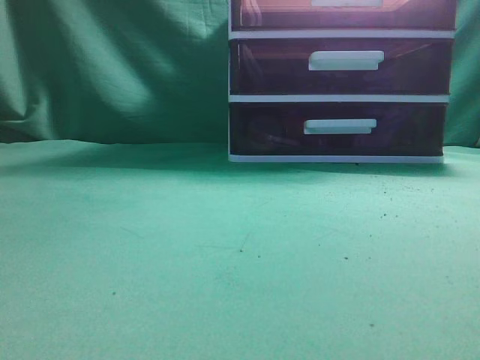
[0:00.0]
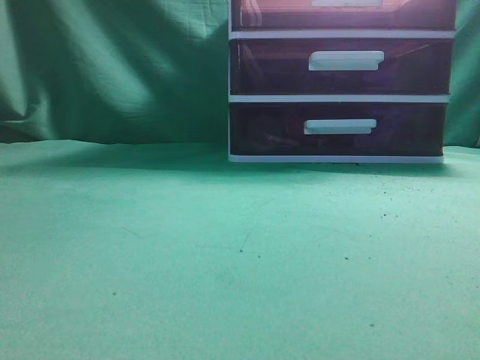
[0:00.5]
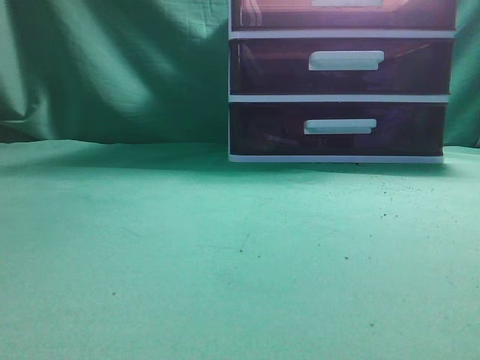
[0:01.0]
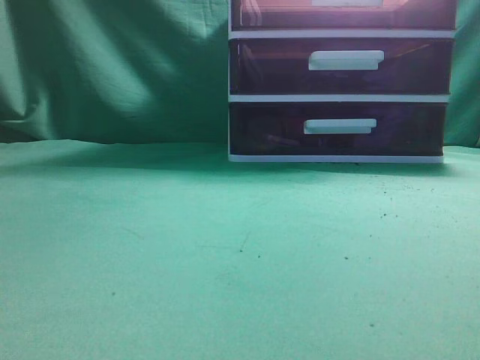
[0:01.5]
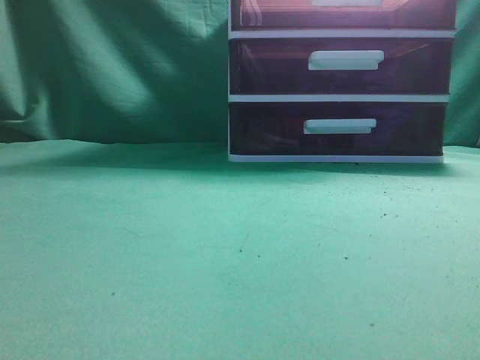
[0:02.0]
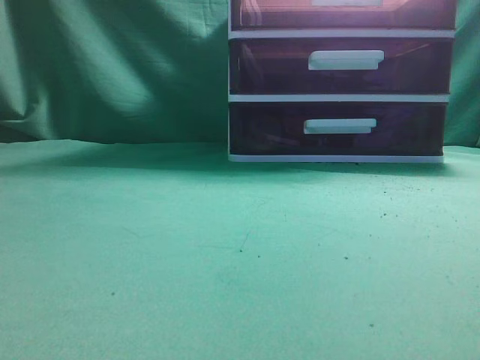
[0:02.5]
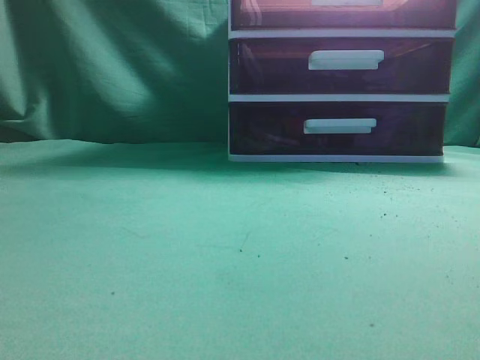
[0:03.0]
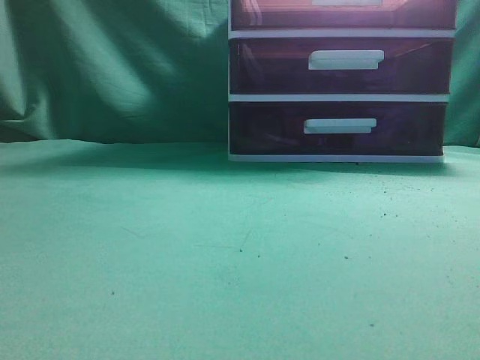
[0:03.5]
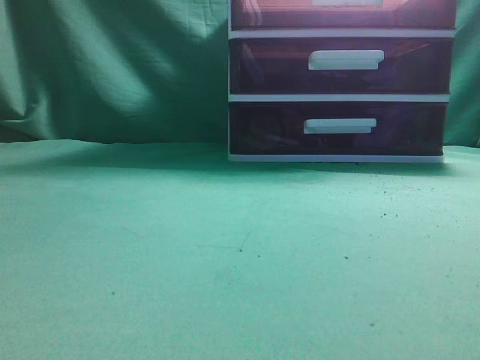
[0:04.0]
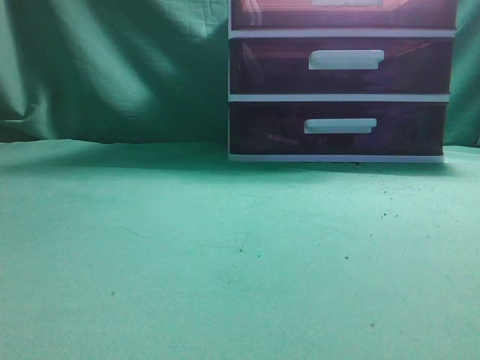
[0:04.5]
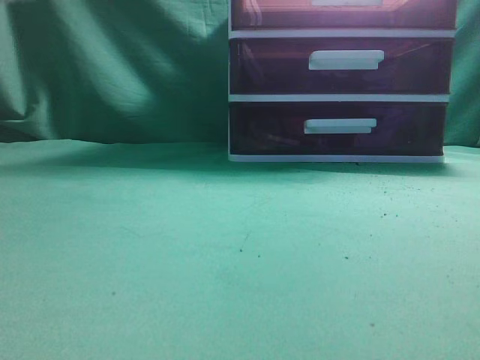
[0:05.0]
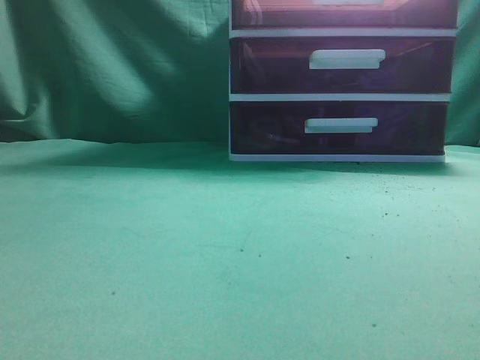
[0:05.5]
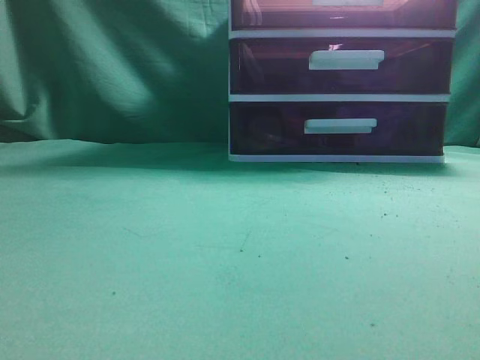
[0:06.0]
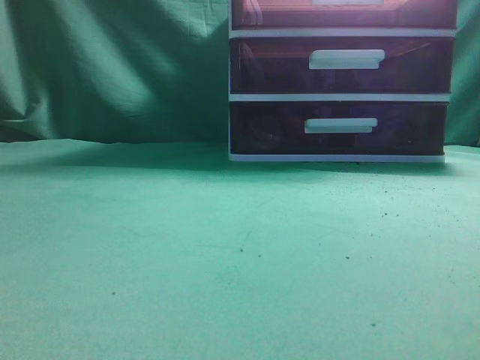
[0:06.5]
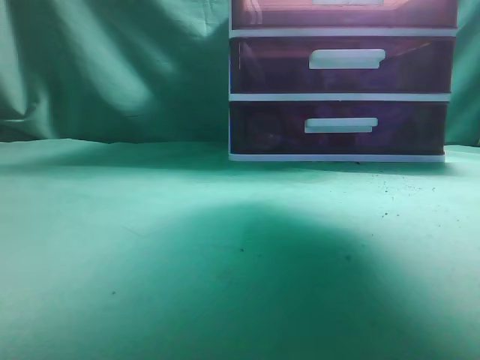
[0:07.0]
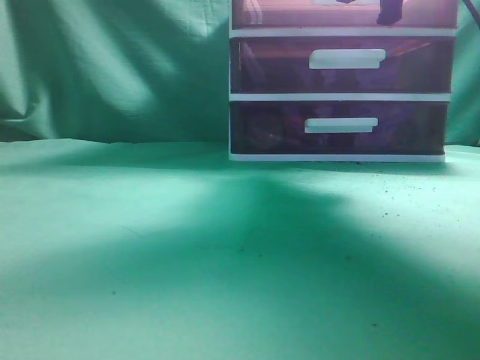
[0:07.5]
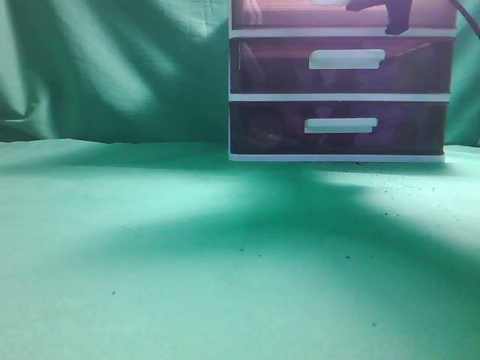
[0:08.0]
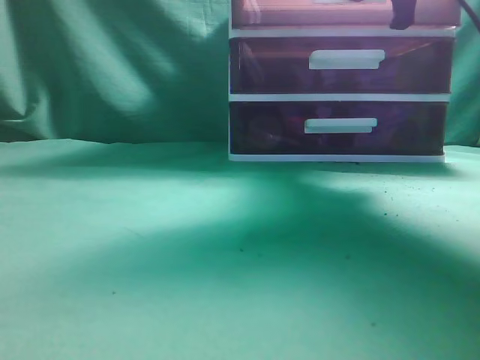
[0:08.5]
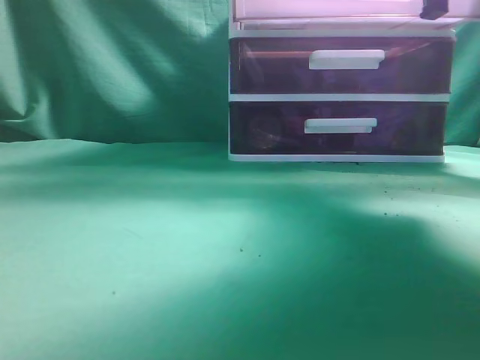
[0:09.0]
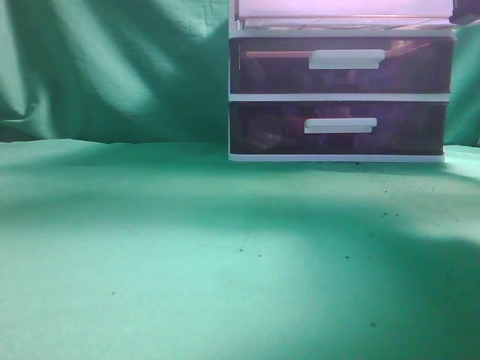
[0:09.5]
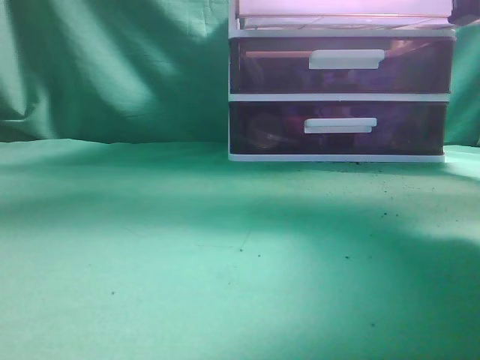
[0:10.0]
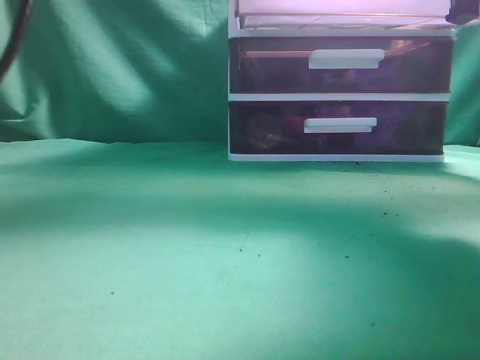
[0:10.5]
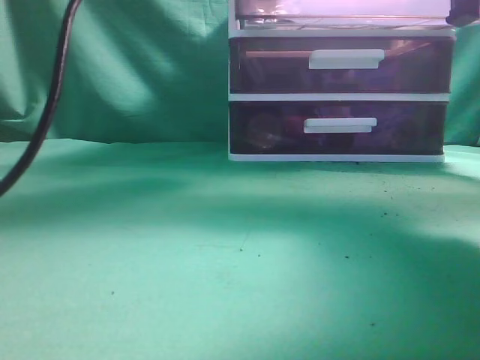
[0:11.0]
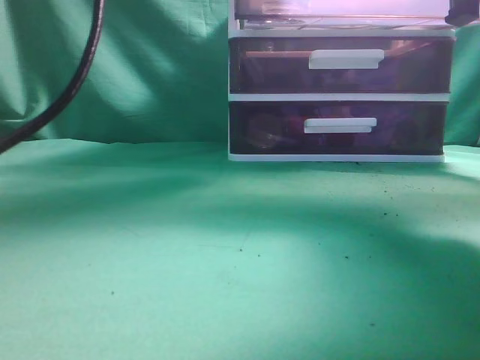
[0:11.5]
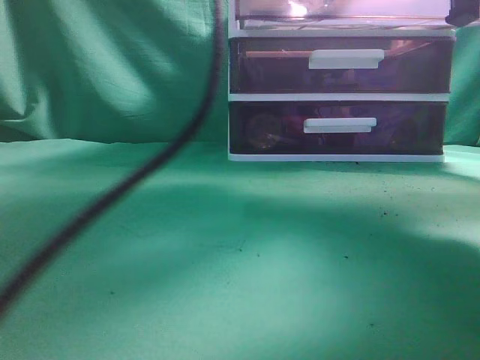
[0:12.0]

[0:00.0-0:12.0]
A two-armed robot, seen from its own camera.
Task of the whole recording: place the water bottle into the drawer.
Step, 0:00.0 to 0:09.5: Open the drawer.
0:06.0 to 0:08.0: The right gripper shifts about 35 cm forward, and opens its fingers.
0:08.0 to 0:10.0: The left gripper ends up approximately 10 cm from where it was. The right gripper shifts approximately 10 cm backward.
0:10.0 to 0:12.0: The left gripper is displaced forward, to the right and downward by roughly 25 cm, and opens.

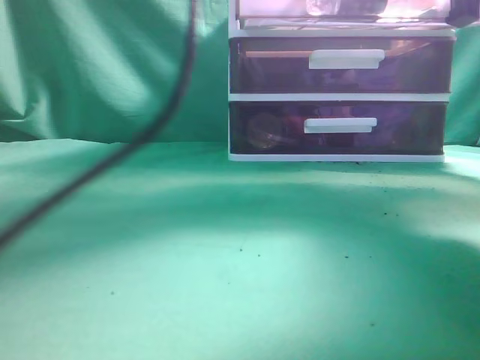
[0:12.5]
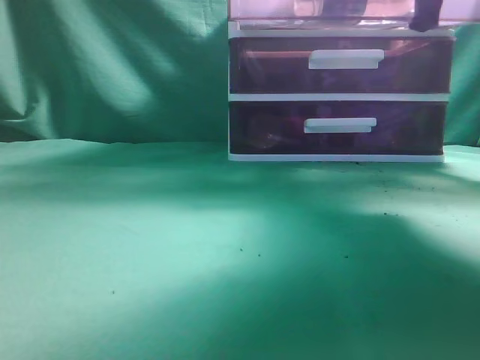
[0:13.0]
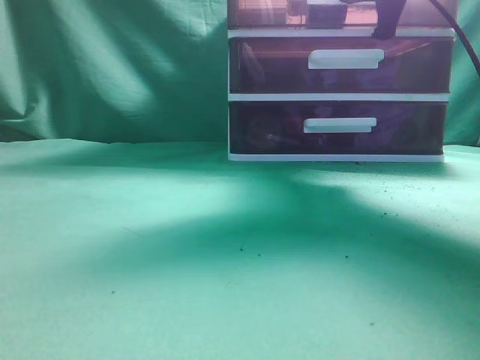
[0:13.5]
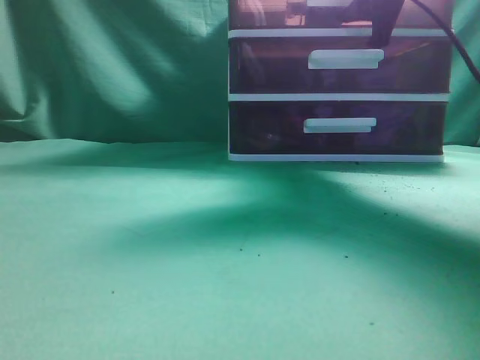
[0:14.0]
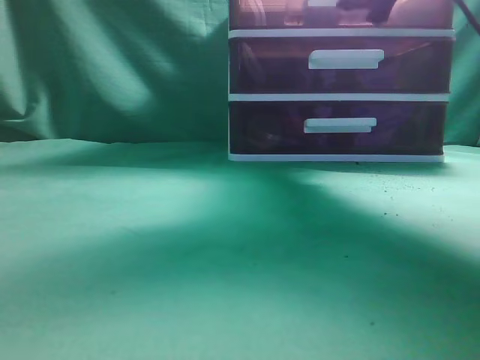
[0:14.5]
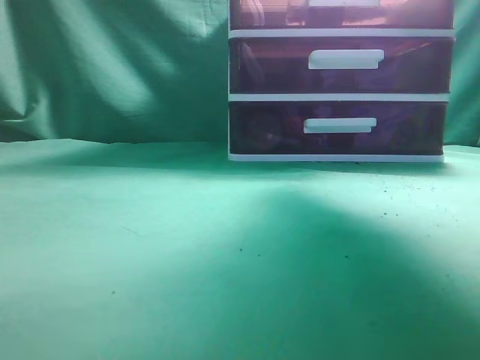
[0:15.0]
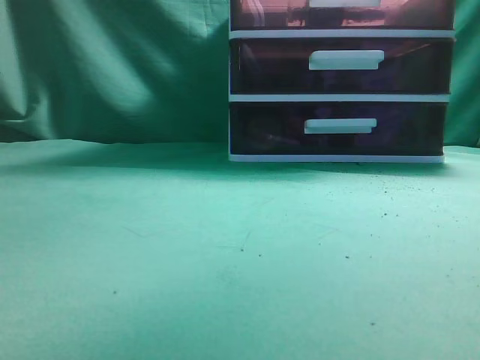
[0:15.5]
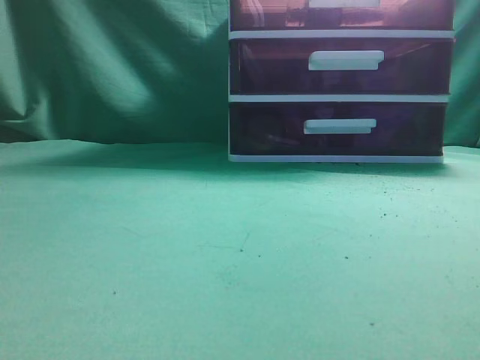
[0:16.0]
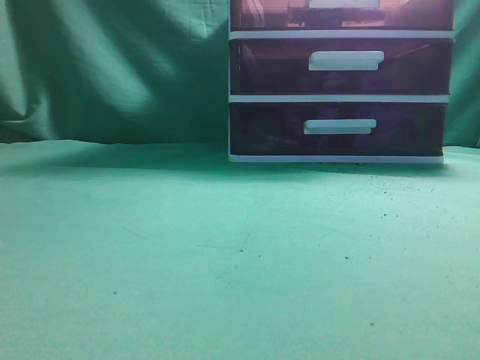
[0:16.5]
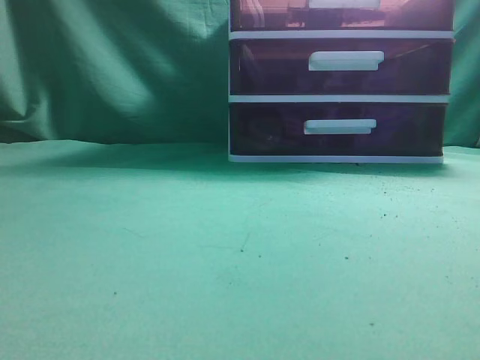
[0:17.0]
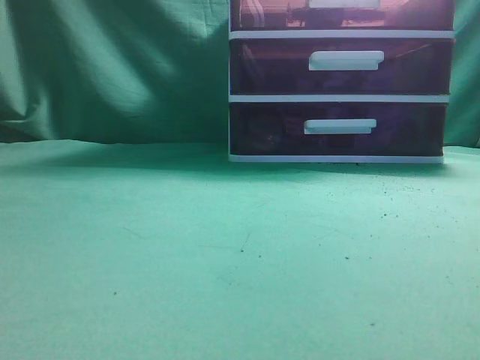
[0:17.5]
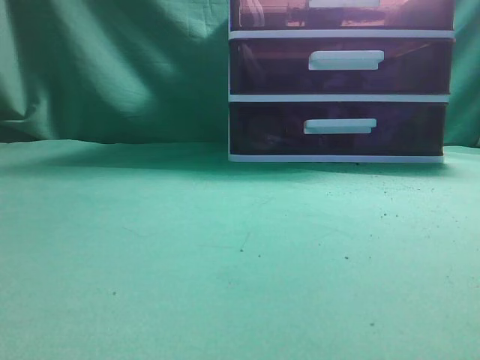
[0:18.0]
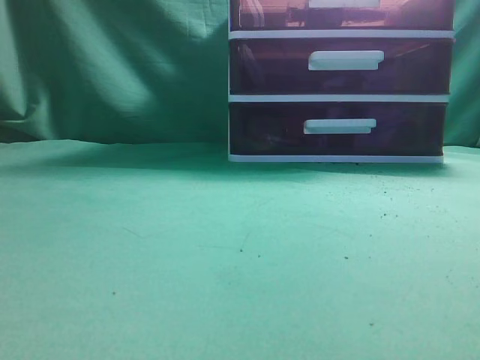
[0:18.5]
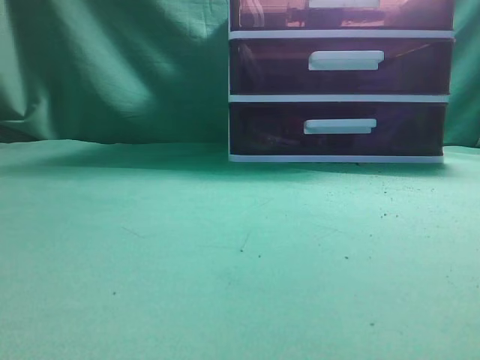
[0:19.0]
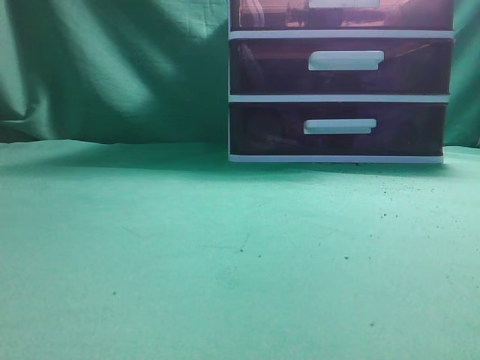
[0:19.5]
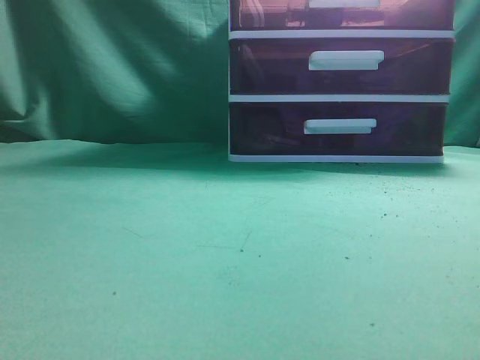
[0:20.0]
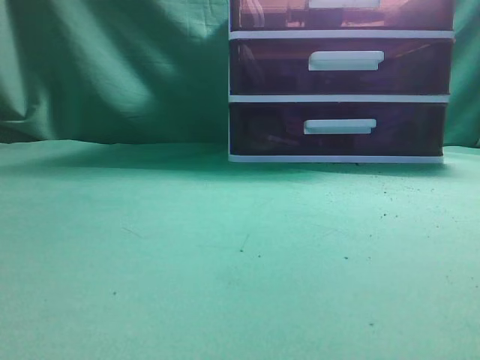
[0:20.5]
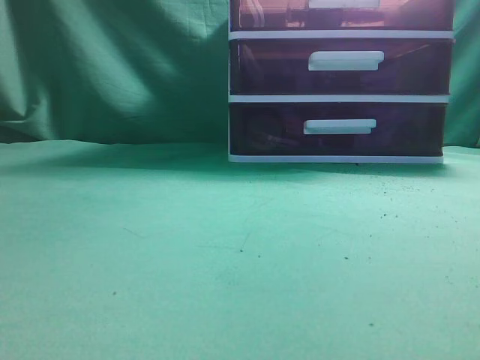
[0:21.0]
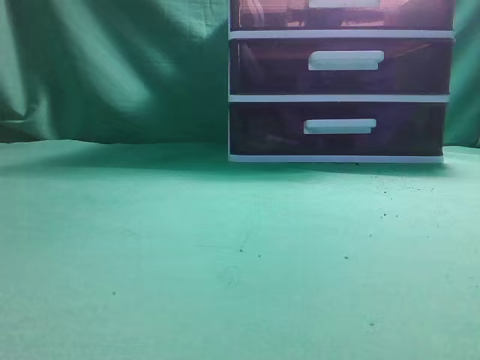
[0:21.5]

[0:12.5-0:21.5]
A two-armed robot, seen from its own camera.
Task of the whole recording: place the water bottle into the drawer.
Step, 0:12.5 to 0:15.0: Close the drawer.
0:12.5 to 0:14.5: The right gripper goes some 10 cm forward, and opens up, while the left gripper moves upward, to the left and backward, some 15 cm, and closes.
0:14.5 to 0:17.0: The left gripper heads backward, to the left and downward, covering roughly 40 cm; the right gripper goes approximately 40 cm backward, and closes up.
